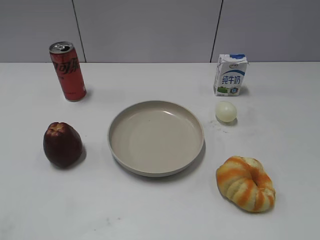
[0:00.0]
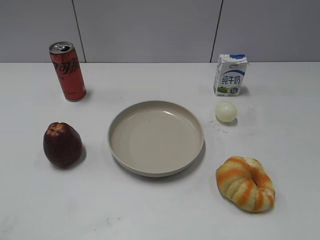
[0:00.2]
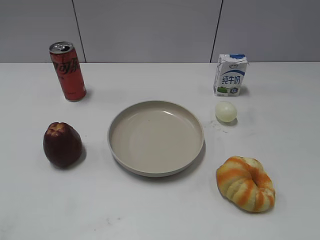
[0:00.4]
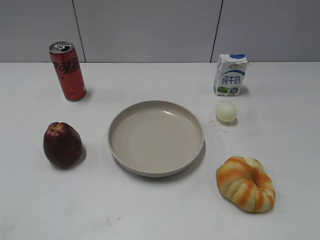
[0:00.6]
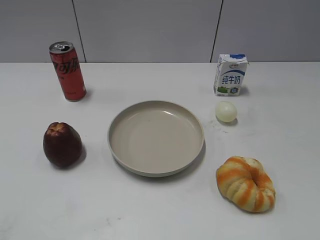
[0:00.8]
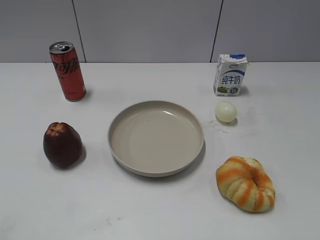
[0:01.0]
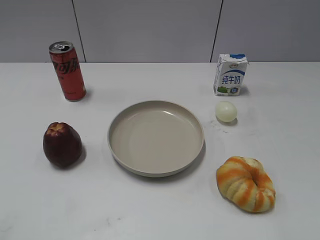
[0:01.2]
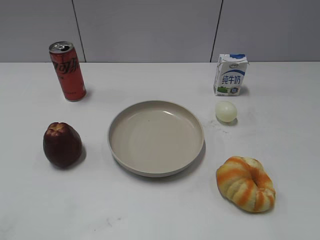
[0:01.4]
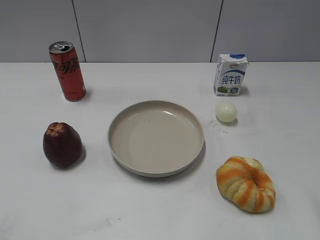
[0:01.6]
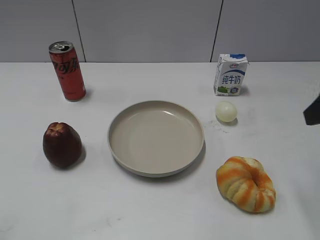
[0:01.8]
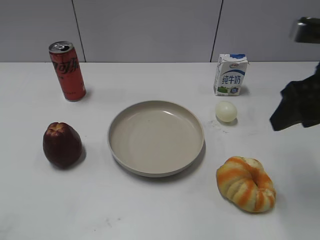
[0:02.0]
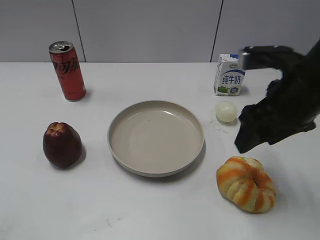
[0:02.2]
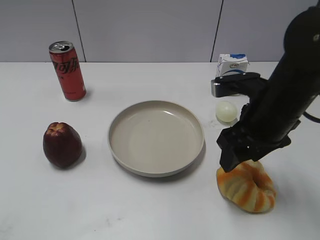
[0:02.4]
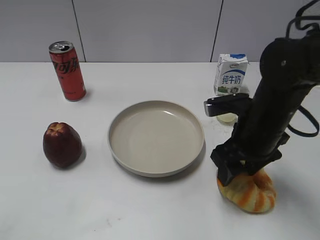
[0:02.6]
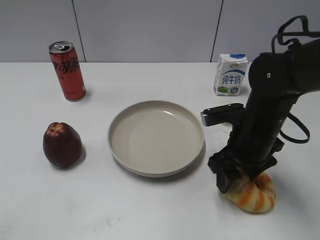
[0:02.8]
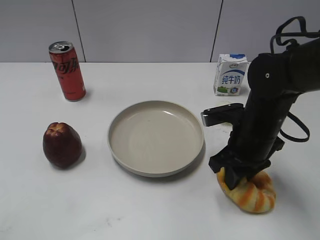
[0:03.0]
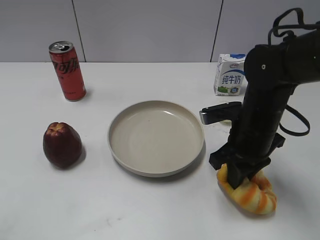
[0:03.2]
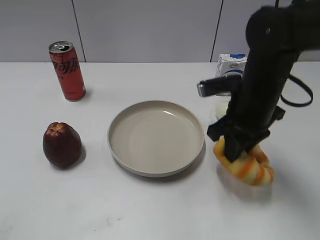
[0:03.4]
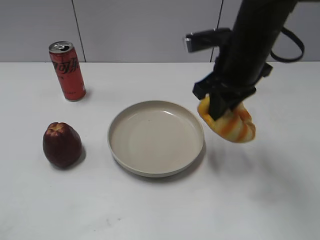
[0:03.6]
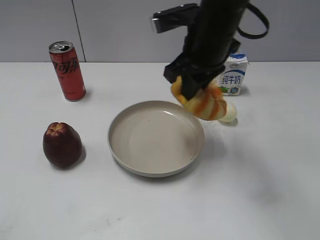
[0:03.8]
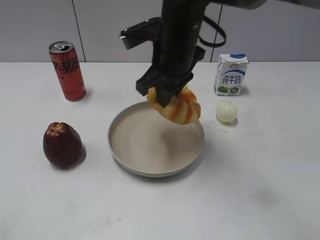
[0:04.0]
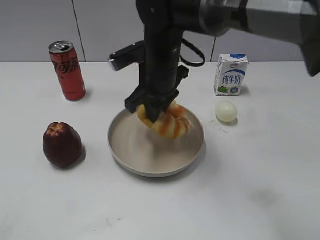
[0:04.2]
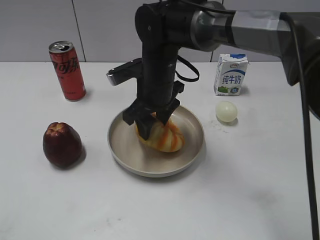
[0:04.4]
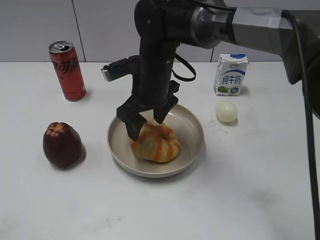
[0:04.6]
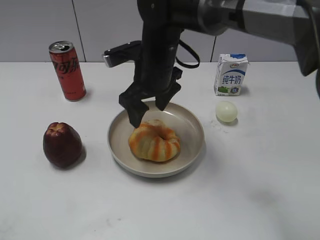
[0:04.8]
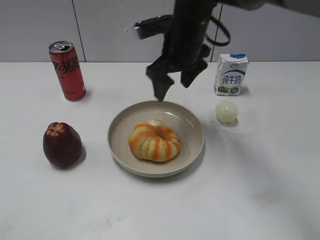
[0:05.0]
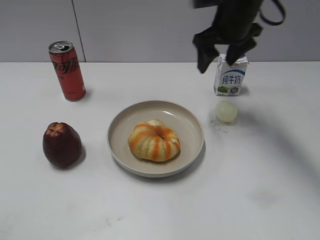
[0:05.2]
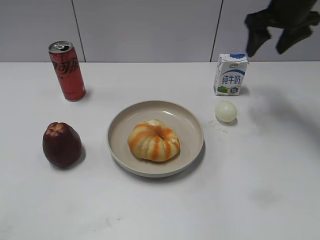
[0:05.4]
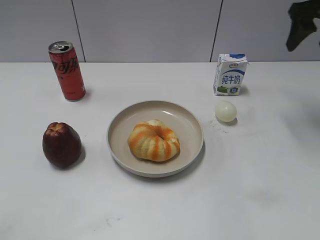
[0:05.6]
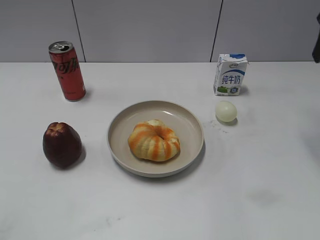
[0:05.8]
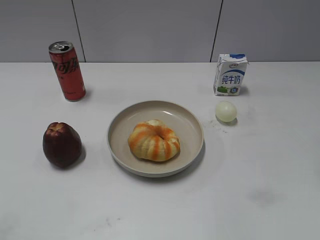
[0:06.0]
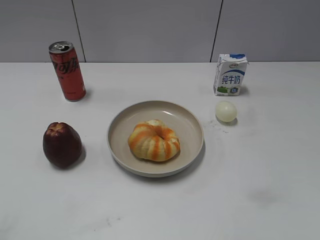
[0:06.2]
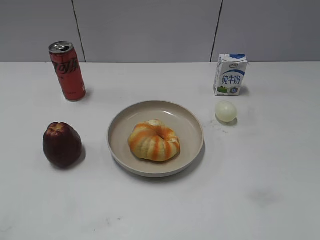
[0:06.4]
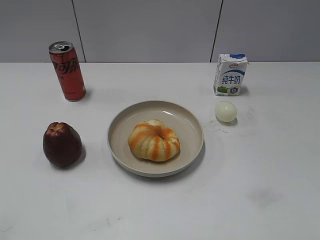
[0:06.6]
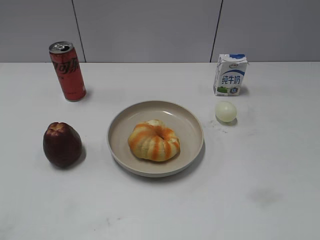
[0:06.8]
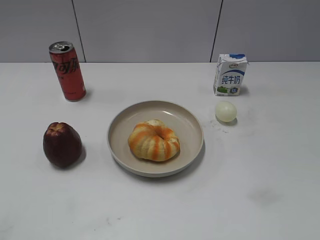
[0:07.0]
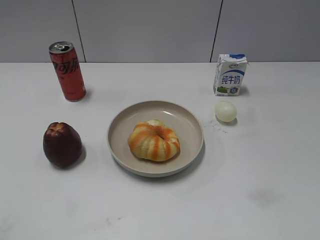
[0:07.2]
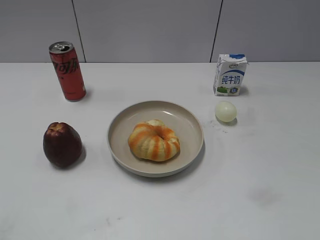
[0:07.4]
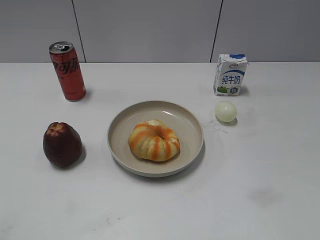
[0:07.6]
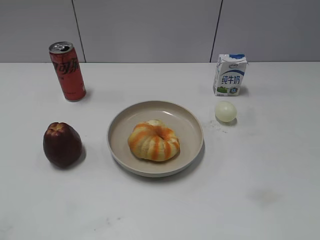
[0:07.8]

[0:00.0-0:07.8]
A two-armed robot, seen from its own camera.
Step, 0:00.8 to 0:03.0: Grasp the round bread with right gripper.
Step, 0:03.2 to 0:04.8: Place the round bread on the plate with right gripper.
0:01.6 to 0:03.2: The right gripper goes approximately 25 cm downward, to the left and forward, and closes up.
0:03.2 to 0:04.6: The right gripper moves to the left and forward, approximately 20 cm, and opens up.
0:04.6 to 0:06.2: The right gripper shifts approximately 40 cm to the right, upward and backward.
